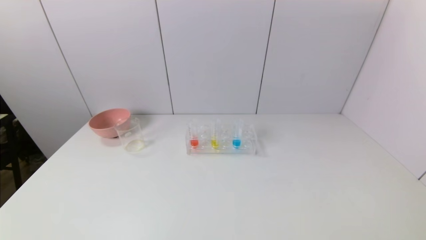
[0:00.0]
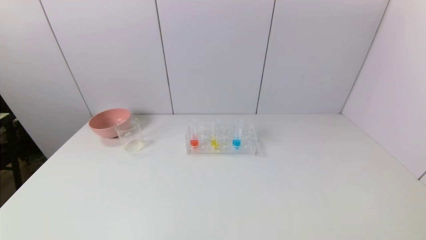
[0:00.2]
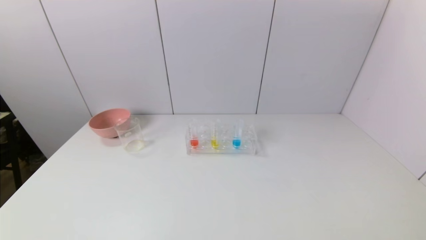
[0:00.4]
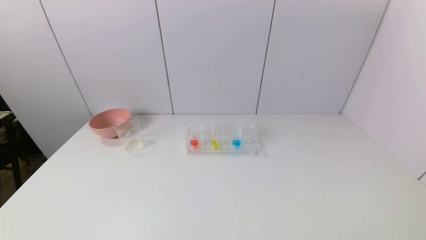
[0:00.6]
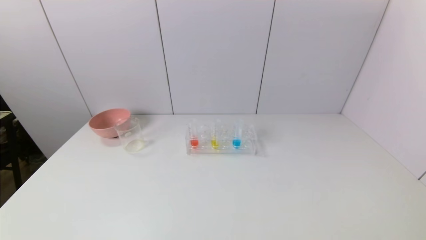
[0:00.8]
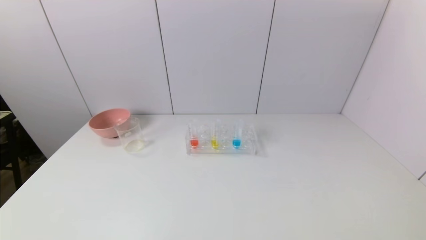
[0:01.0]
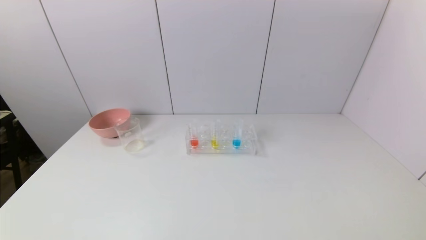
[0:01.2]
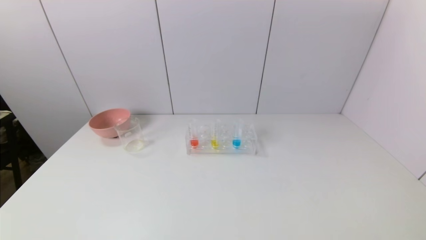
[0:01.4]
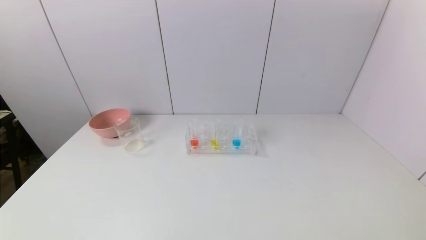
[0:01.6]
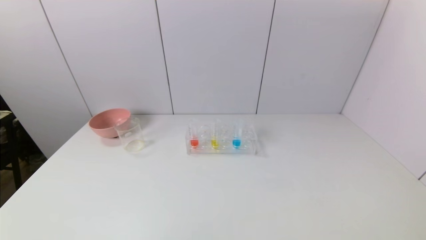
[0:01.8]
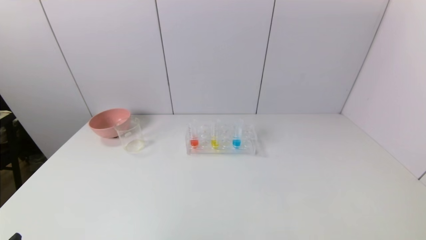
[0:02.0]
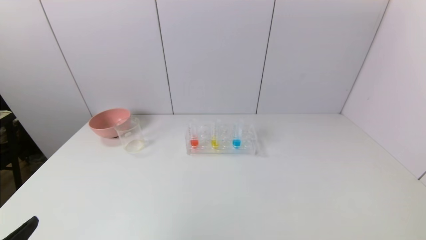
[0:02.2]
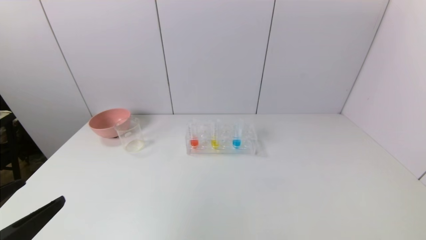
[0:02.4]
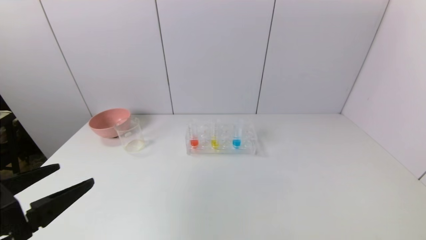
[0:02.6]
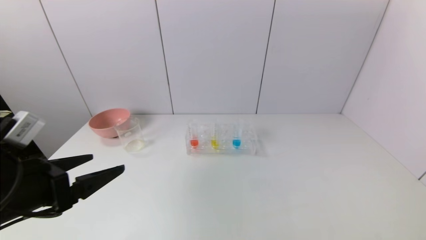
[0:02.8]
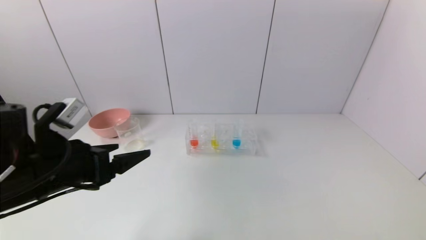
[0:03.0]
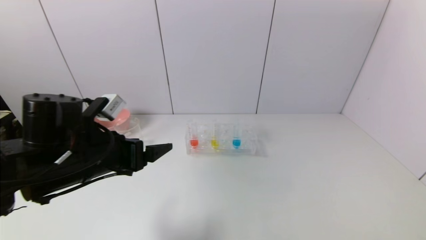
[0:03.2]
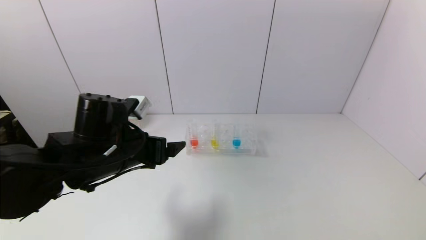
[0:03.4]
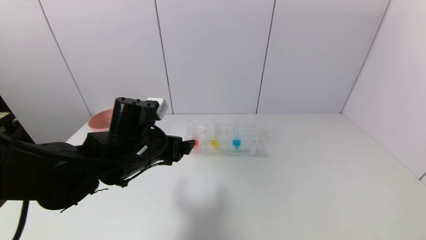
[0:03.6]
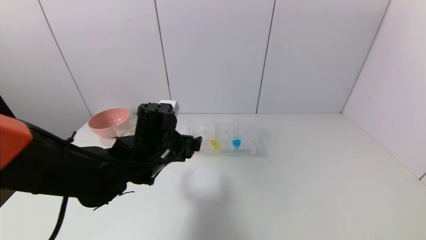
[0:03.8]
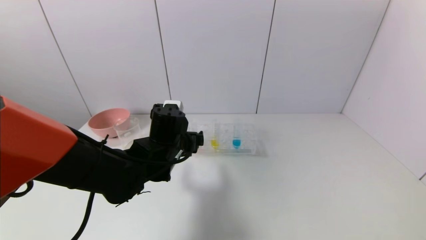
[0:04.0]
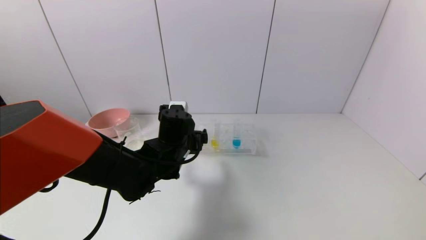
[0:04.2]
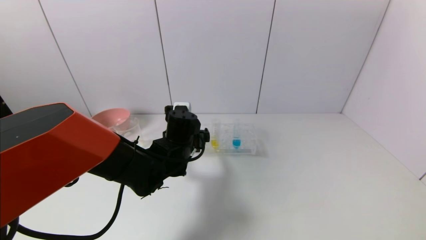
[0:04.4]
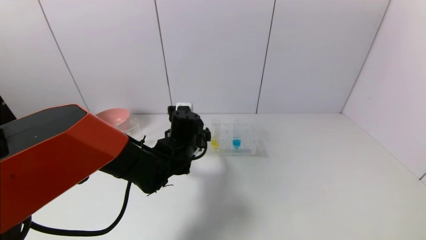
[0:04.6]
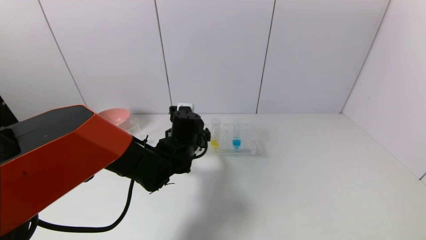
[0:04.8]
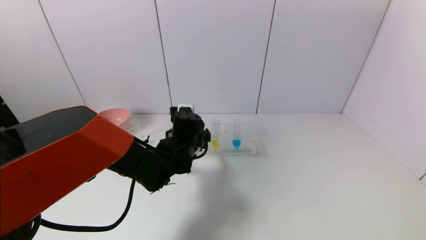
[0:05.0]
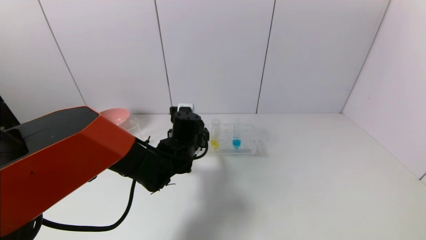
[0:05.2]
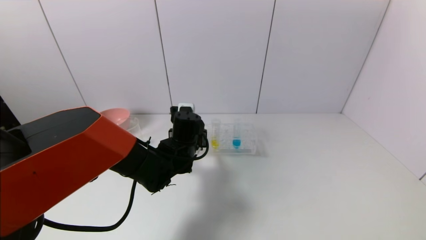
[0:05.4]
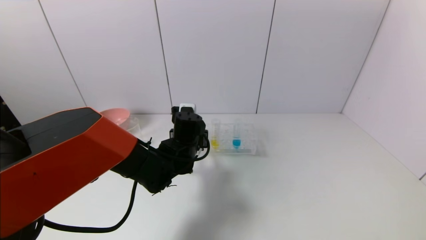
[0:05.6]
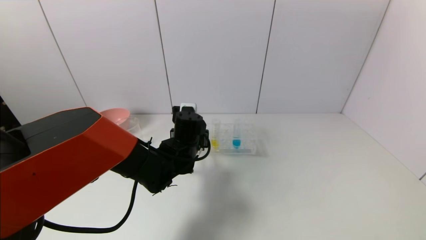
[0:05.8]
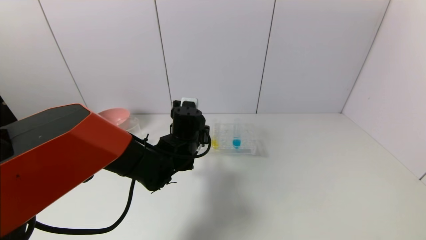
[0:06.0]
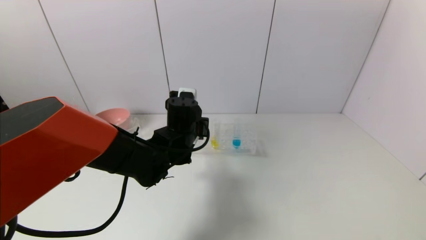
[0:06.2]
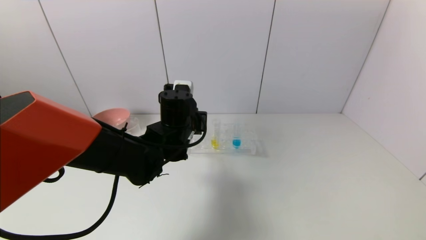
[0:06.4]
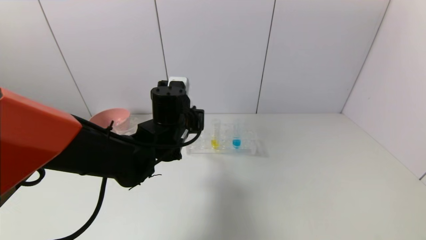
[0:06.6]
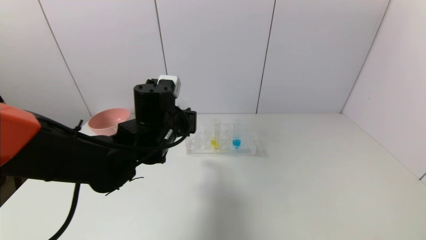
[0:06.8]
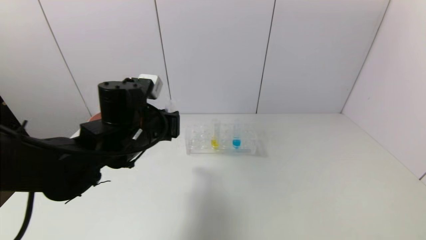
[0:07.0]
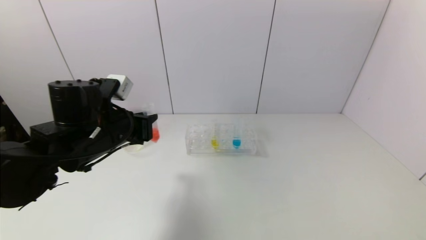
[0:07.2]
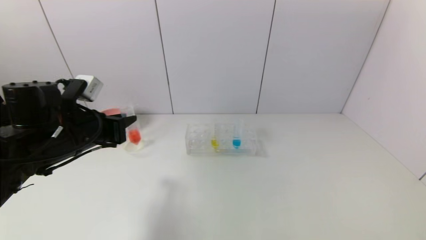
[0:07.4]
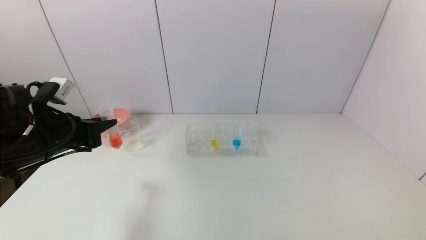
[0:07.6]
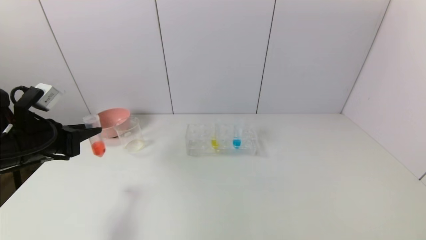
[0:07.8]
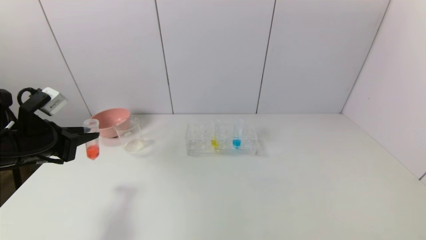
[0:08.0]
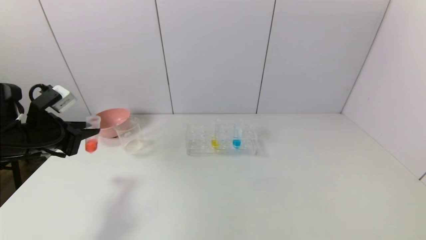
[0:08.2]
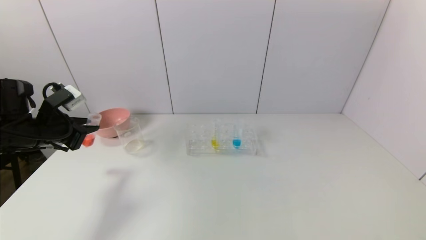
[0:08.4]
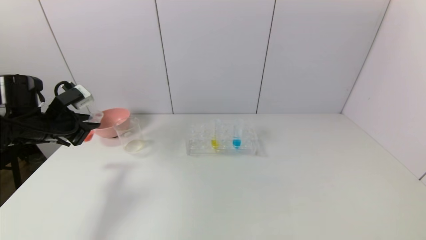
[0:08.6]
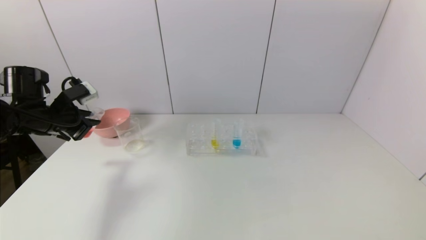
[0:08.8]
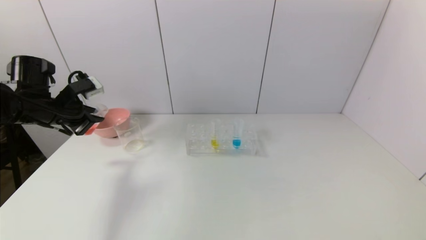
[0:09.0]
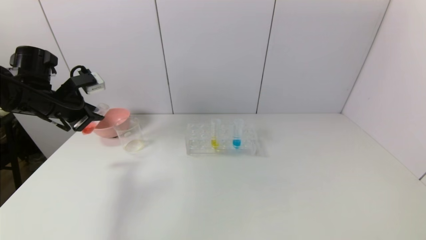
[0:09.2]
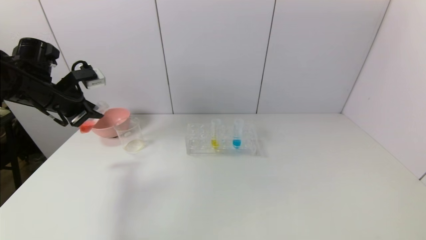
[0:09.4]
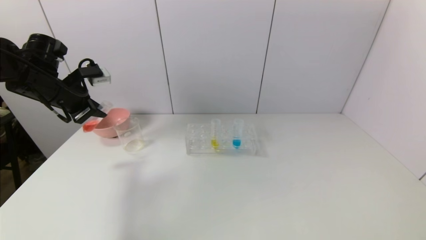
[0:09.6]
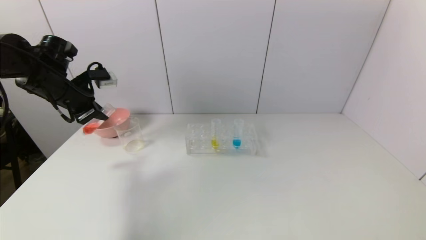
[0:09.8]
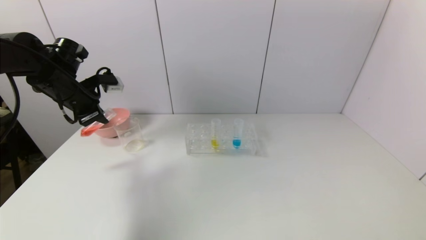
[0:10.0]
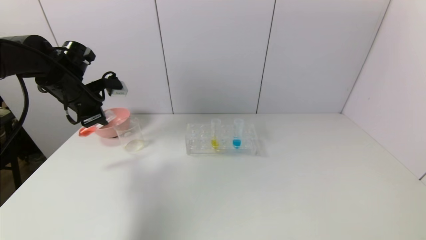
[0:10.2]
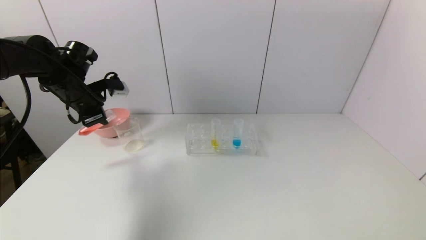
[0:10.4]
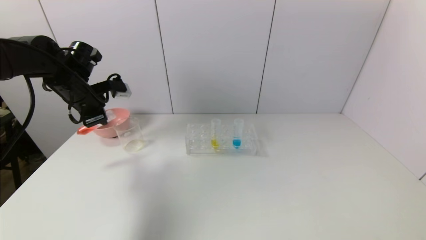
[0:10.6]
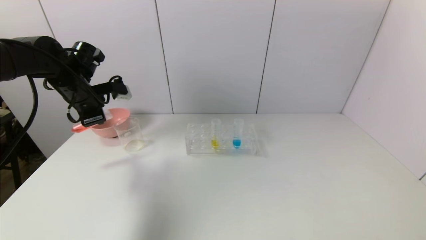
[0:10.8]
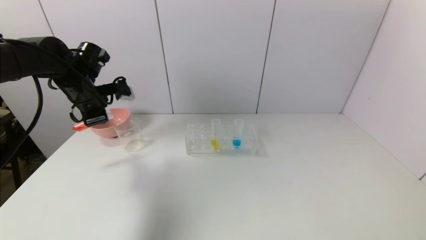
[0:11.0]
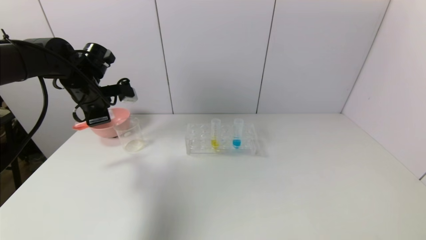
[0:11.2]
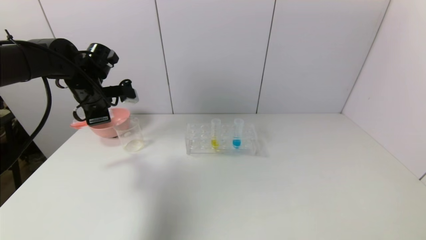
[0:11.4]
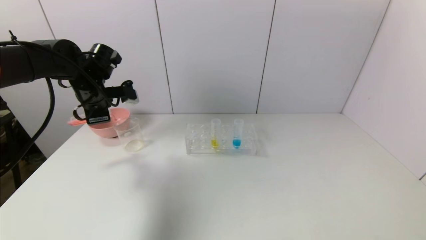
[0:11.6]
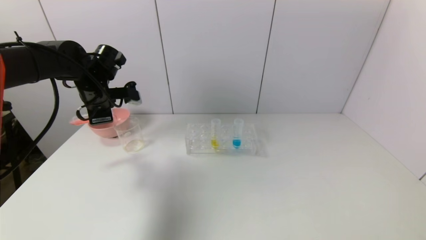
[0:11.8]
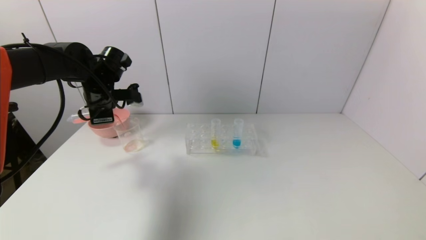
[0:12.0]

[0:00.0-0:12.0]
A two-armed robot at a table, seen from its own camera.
Task of the whole recording: pick up the test tube with yellow pigment and the test tube with red pigment by grippers and pour them into the beaker.
Step, 0:00.0 to 0:05.6: Grasp the red reagent with the left gripper.
0:01.6 to 0:03.0: The left gripper goes approximately 25 cm forward and upward.
0:03.0 to 0:04.4: The left gripper shifts roughly 25 cm to the right, forward and downward.
0:04.4 to 0:06.0: The left gripper closes up.
0:06.0 to 0:07.6: The left gripper shifts roughly 25 cm to the left and backward.
0:07.6 to 0:09.0: The left gripper moves forward, some 10 cm.
0:09.0 to 0:10.4: The left gripper moves roughly 5 cm.
0:10.4 to 0:12.0: The left gripper heads to the right, covering roughly 5 cm.

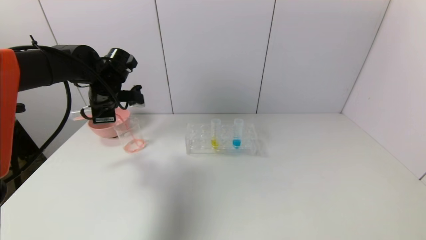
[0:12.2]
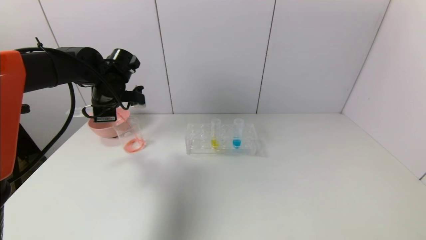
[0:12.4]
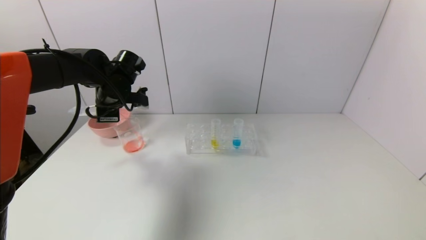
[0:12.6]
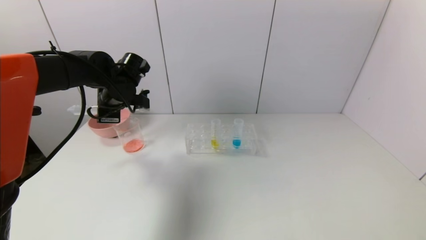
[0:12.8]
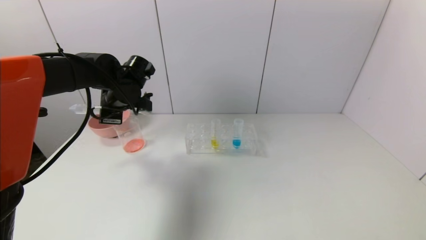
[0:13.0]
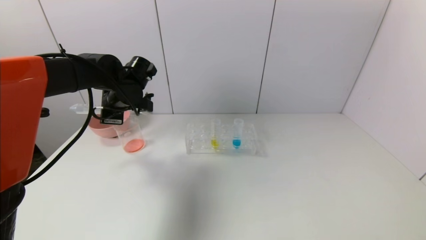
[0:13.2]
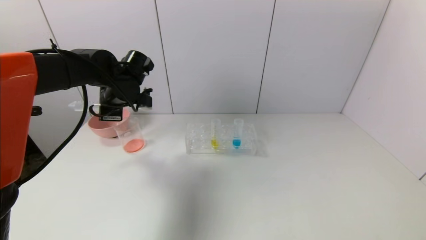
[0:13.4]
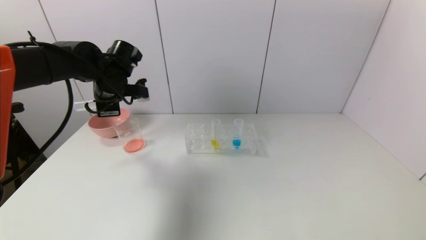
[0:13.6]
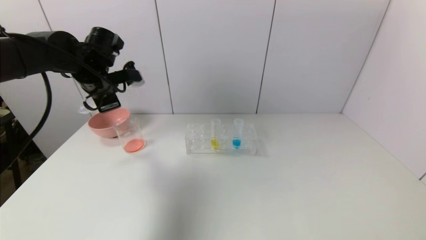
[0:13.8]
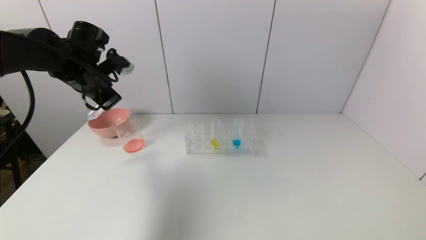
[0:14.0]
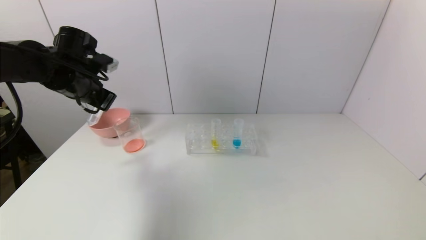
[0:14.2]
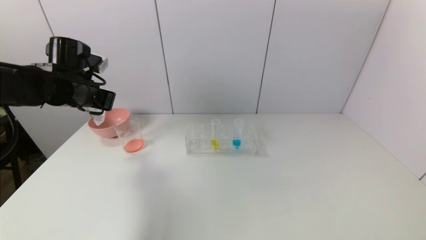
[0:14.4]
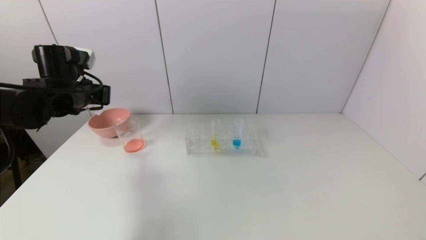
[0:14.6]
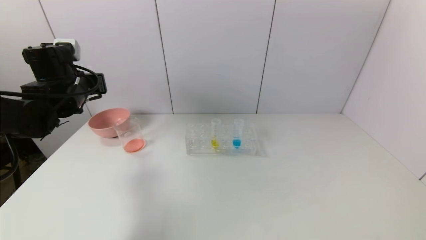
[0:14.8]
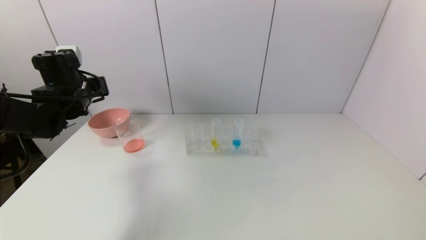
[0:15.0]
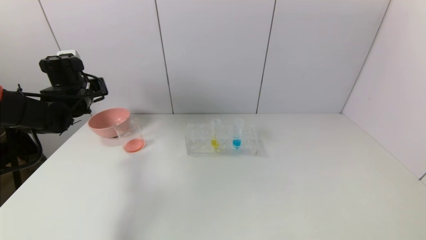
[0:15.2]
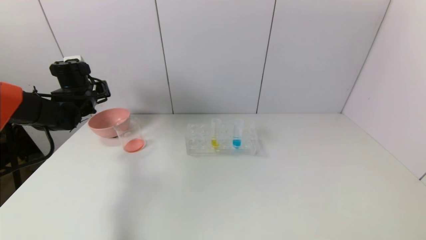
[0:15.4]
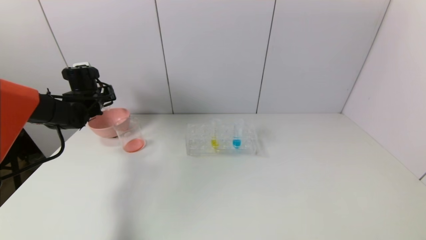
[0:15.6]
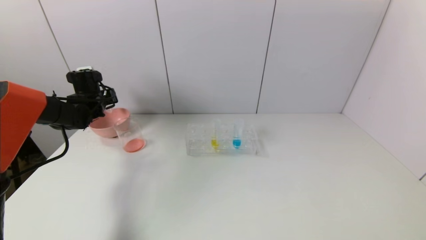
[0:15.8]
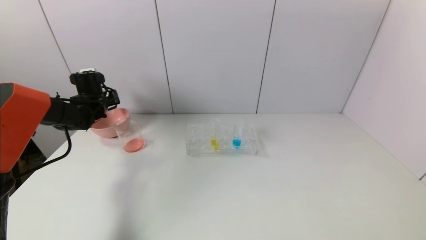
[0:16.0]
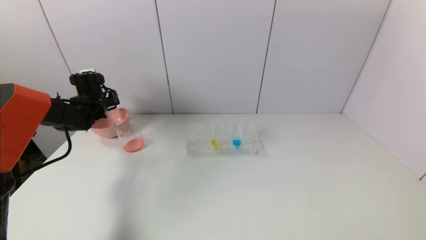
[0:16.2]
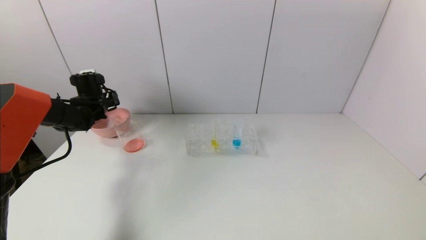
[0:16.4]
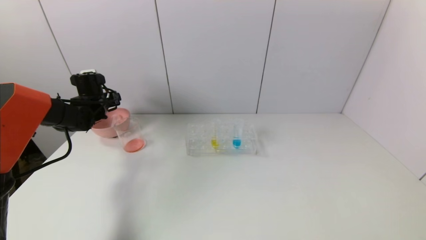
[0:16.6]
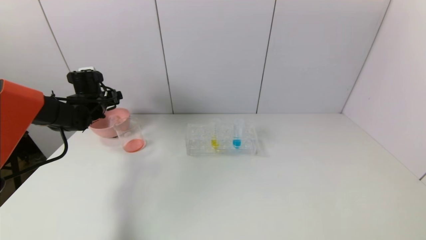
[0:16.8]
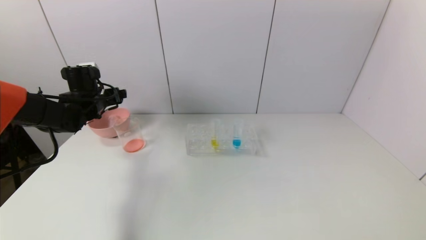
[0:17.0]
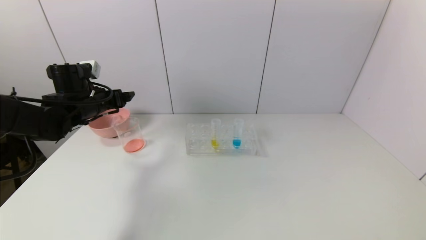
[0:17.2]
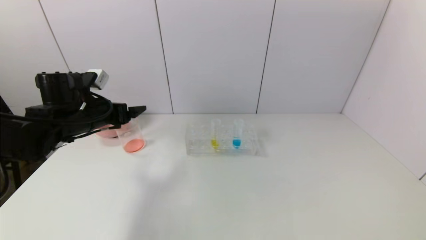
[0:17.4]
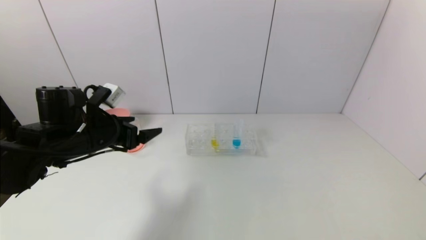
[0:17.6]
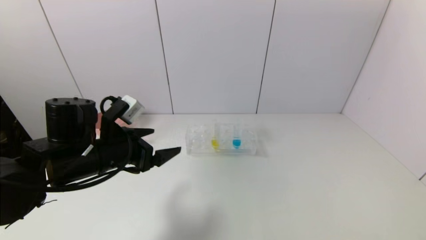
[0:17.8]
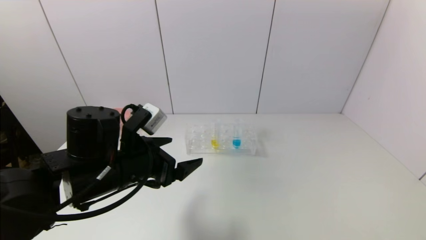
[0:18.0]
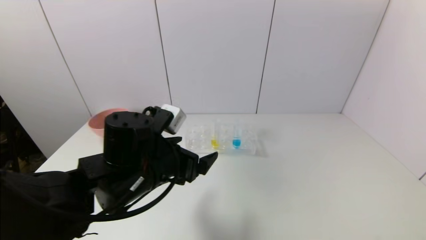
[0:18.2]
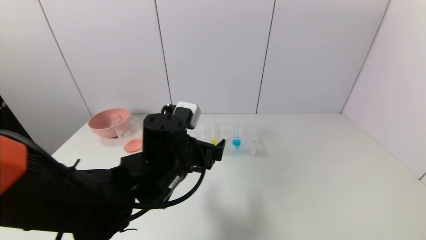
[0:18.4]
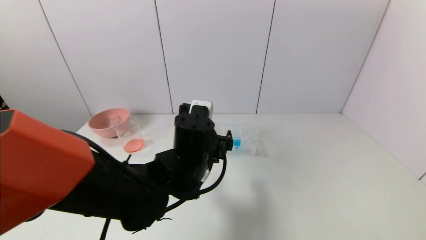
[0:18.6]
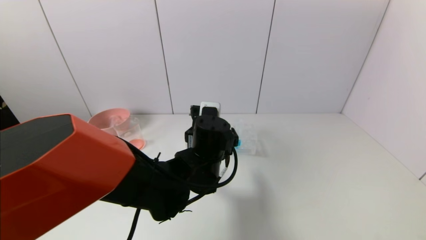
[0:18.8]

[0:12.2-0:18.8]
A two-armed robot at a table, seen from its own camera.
Task of the whole recording: pick up the test tube with yellow pigment and the test tube with red pigment by grippers and pour them into the beaker.
Step, 0:13.4 to 0:16.4: Place the test tube into the pink bowl with the left gripper.
0:13.8 to 0:15.4: The left gripper goes roughly 10 cm to the left and downward.
0:15.4 to 0:17.2: The left gripper moves backward, approximately 5 cm, and opens its fingers.
0:17.2 to 0:18.8: The left gripper is displaced to the right by about 30 cm.
